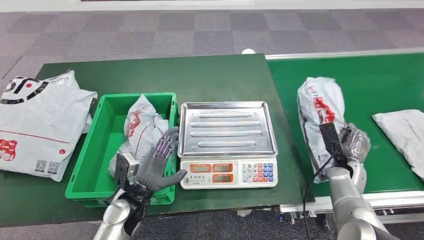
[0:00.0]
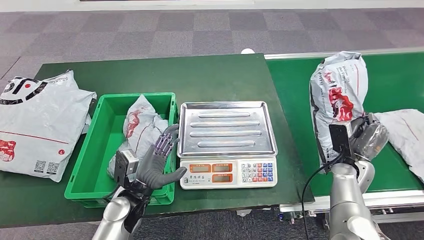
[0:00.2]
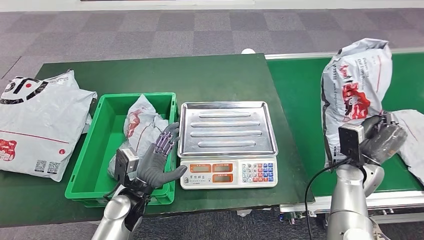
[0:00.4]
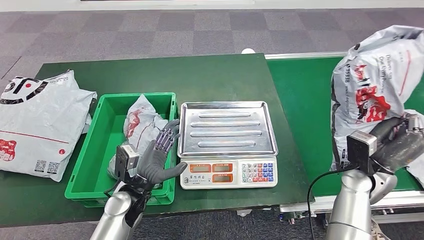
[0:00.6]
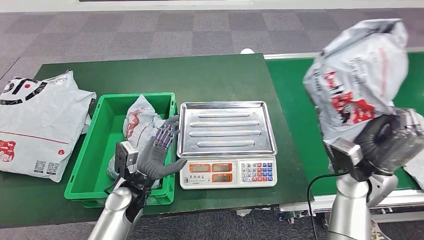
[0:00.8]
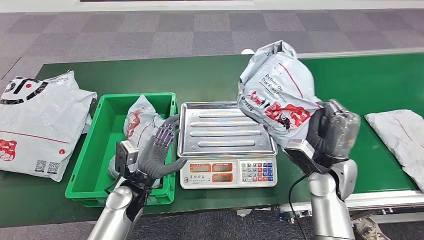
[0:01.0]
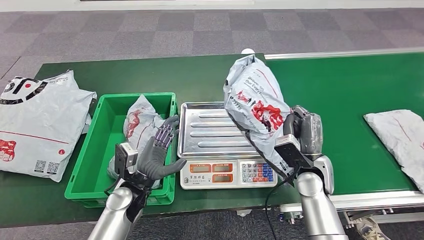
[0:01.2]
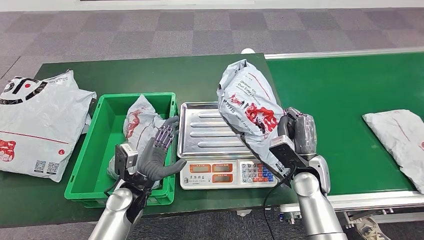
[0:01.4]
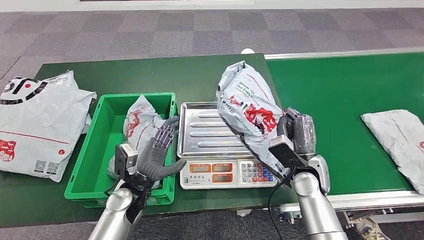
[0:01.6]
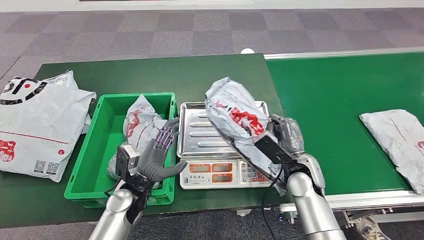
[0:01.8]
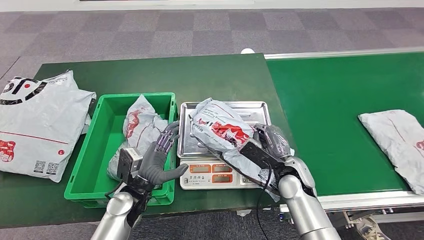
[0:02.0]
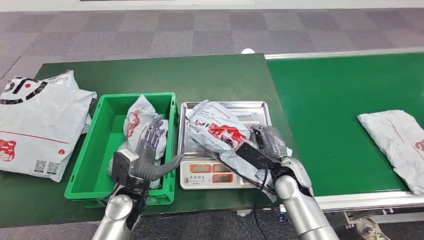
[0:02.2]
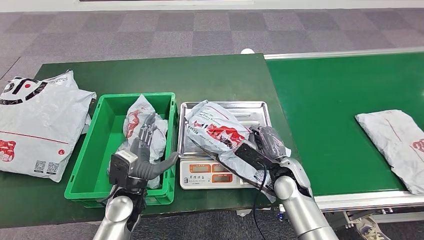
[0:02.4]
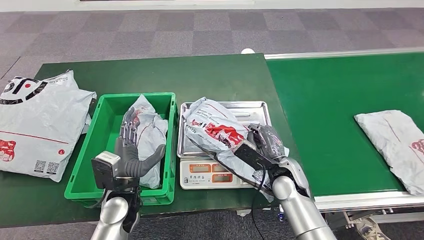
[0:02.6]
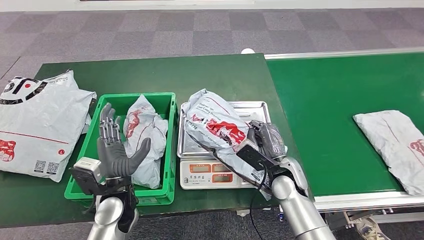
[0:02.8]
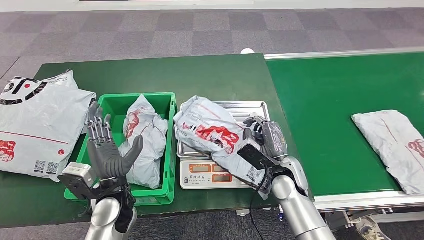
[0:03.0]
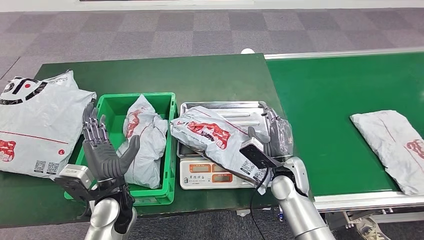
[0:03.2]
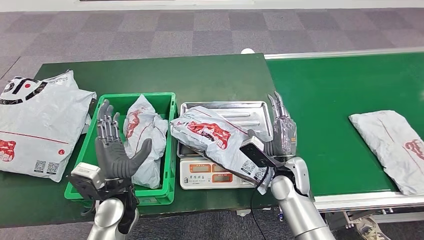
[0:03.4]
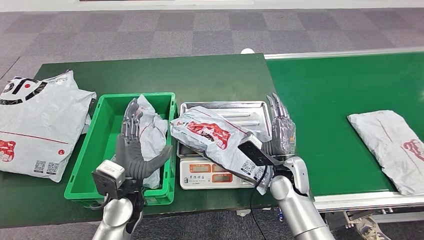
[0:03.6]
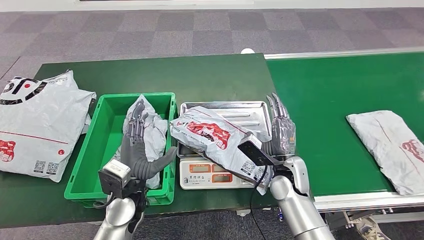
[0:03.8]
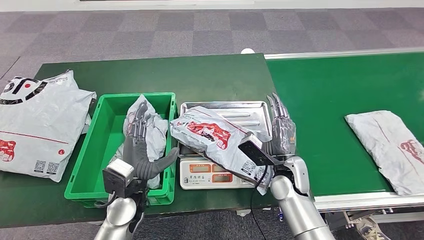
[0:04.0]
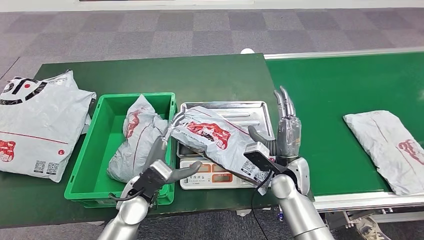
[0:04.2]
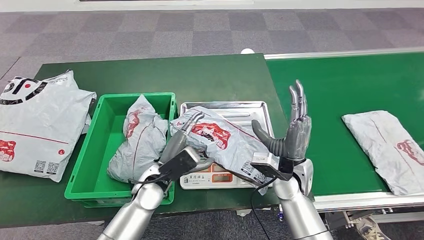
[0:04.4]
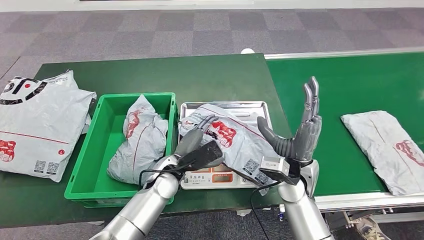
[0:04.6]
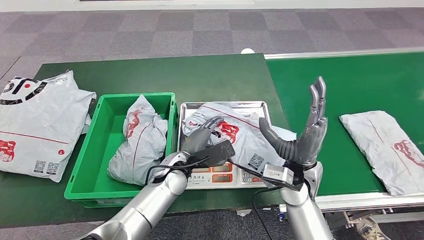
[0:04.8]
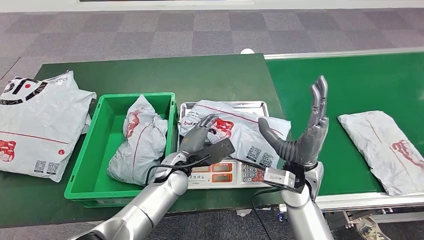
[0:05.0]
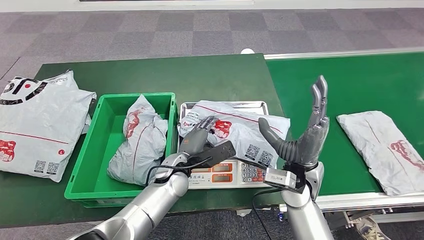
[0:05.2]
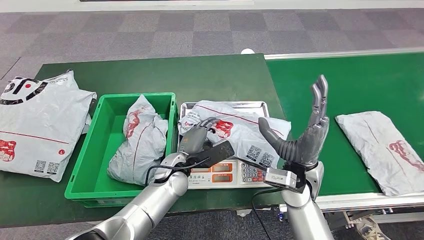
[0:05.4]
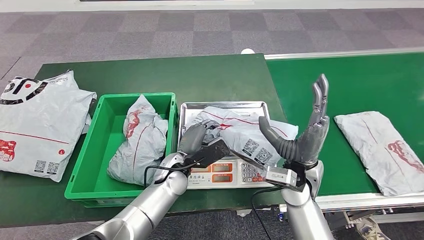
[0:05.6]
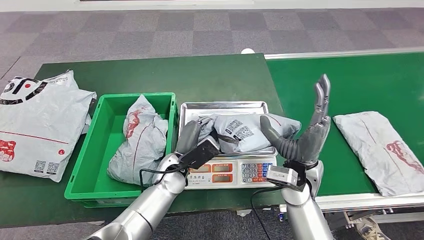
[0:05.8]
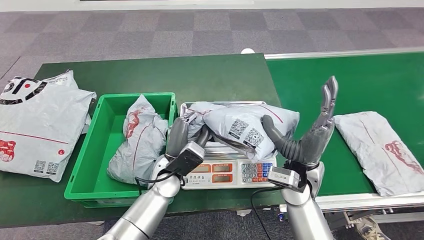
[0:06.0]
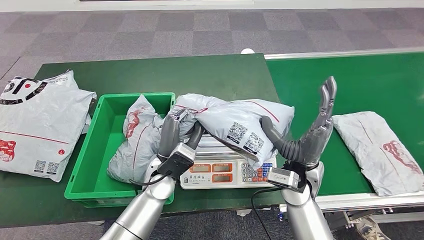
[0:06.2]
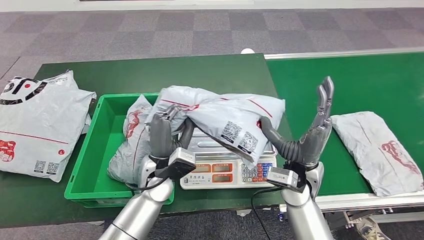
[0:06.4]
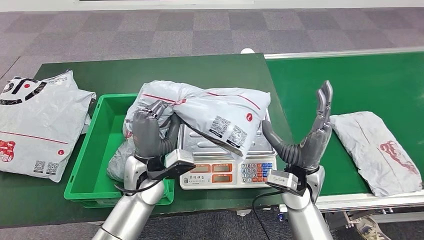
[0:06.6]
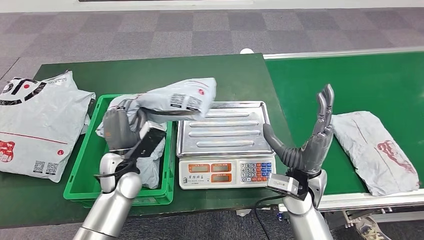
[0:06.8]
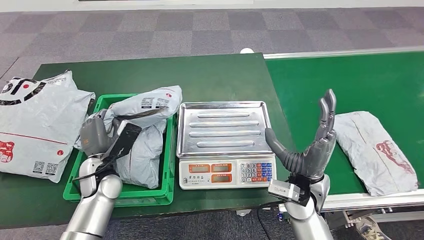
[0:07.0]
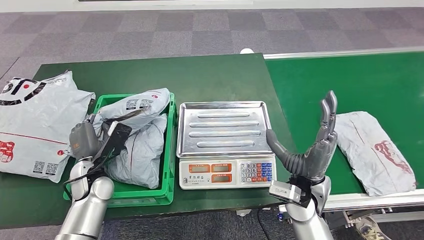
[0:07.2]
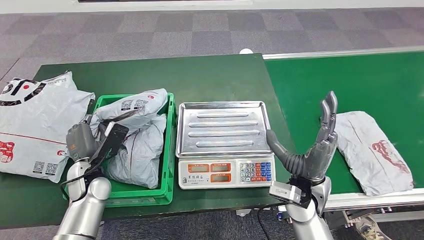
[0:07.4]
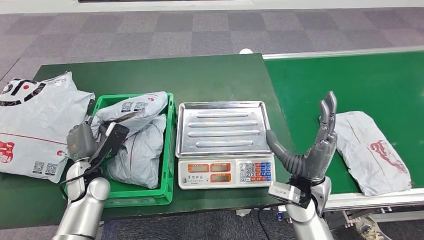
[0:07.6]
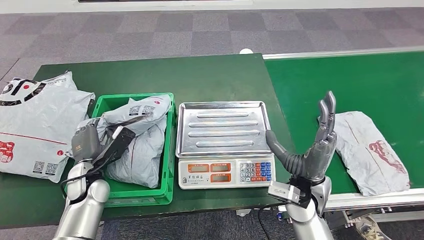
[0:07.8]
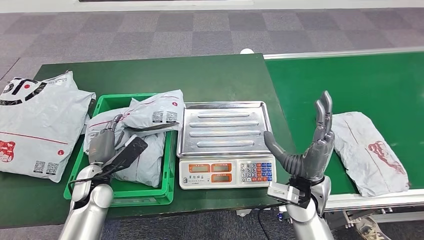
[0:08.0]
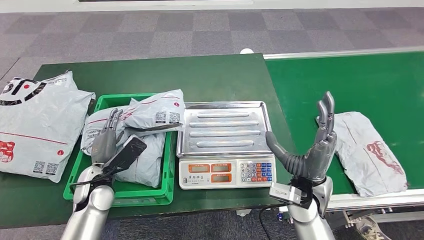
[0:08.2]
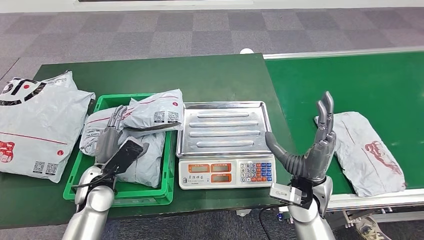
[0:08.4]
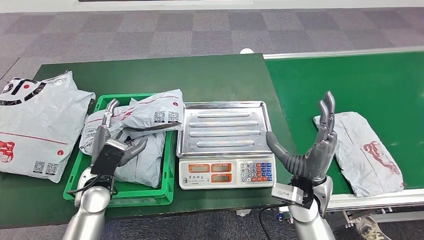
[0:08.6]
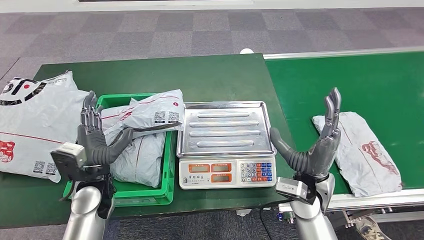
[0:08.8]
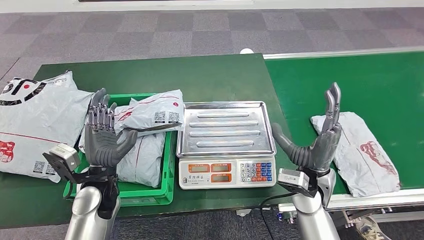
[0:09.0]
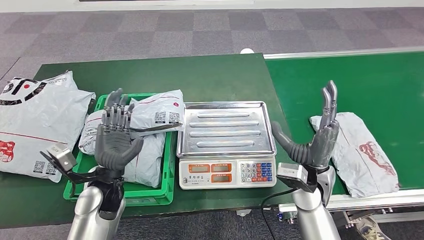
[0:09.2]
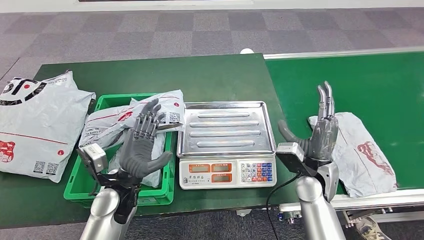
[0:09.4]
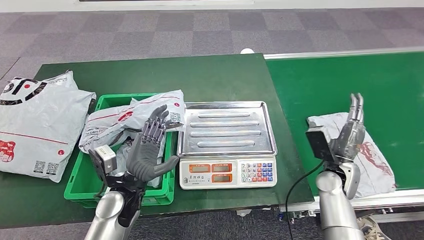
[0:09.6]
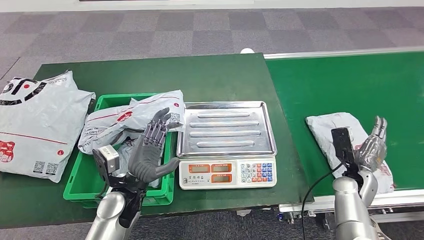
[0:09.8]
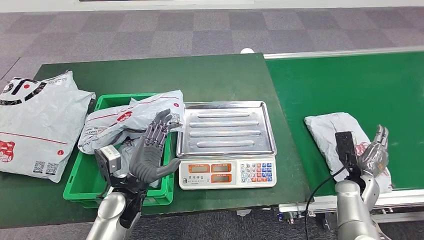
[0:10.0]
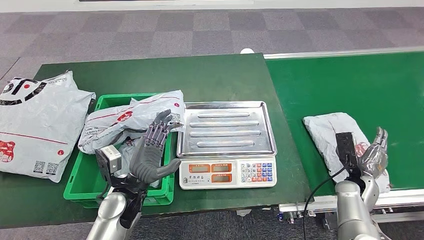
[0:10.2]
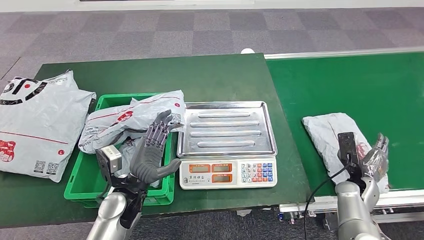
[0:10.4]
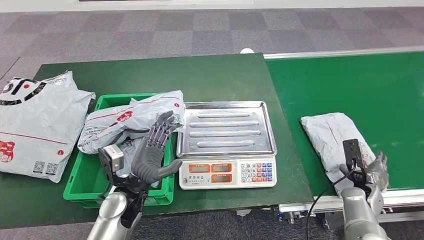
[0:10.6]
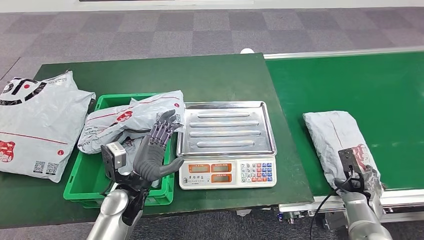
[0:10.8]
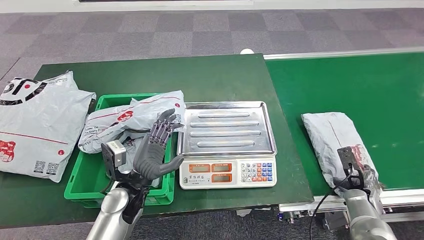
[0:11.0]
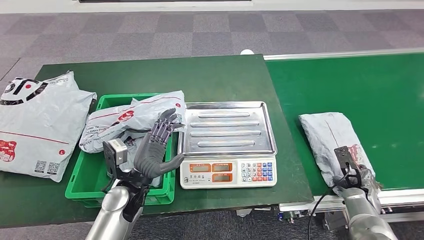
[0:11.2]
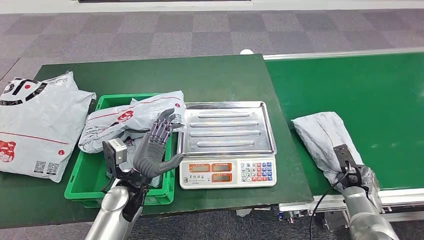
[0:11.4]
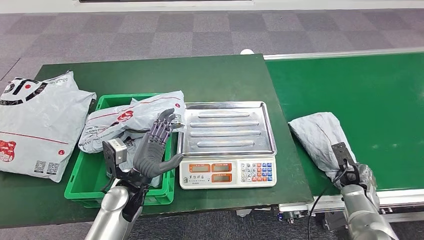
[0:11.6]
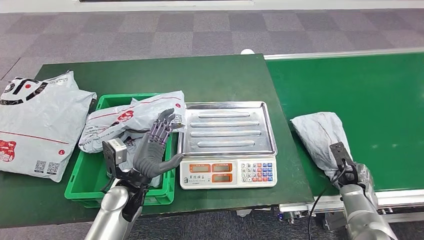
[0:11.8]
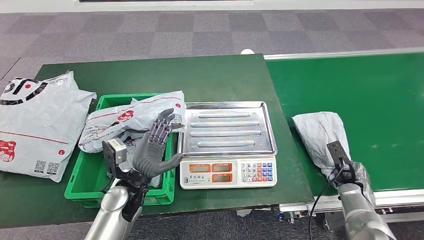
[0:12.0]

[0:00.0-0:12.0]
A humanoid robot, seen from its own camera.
Step, 0:01.0 to 0:05.2: Place the parcel onto the inbound machine.
Step, 0:05.4 to 0:06.8: Pick up the parcel from the inbound machine.
Step, 0:07.2 to 0:09.6: Place the parcel into the delivery box.
0:03.0 to 0:04.4: The left hand goes about 5 cm to the right.
0:07.6 to 0:09.0: The left hand goes roughly 5 cm to the right.

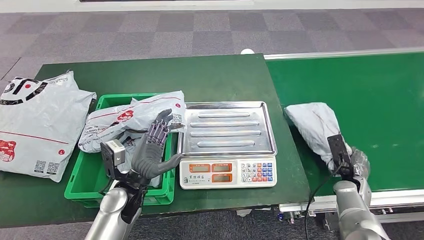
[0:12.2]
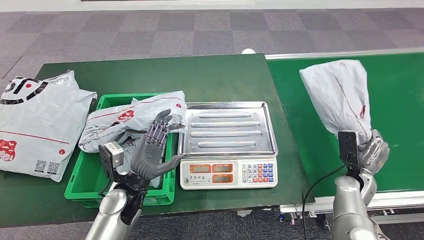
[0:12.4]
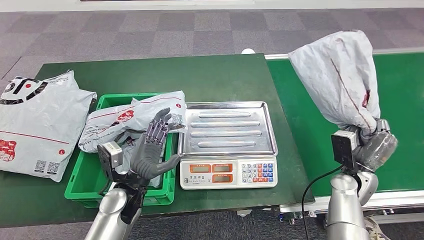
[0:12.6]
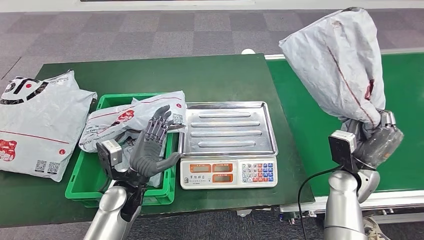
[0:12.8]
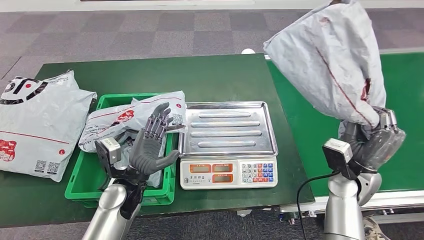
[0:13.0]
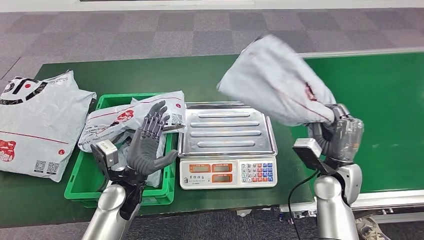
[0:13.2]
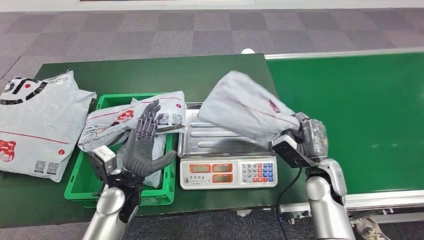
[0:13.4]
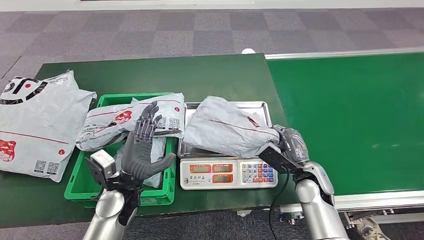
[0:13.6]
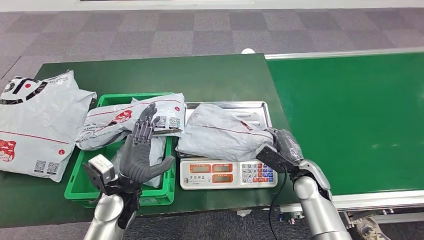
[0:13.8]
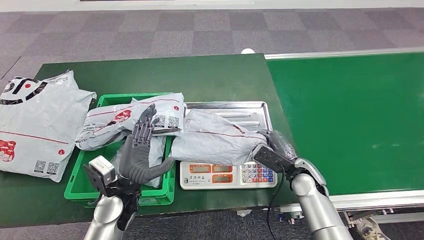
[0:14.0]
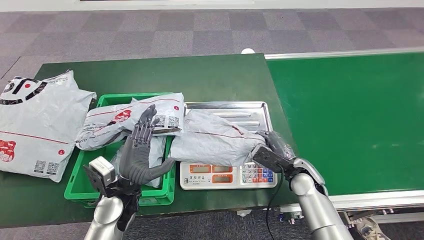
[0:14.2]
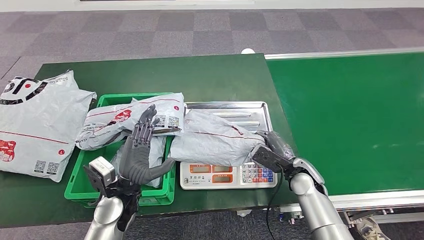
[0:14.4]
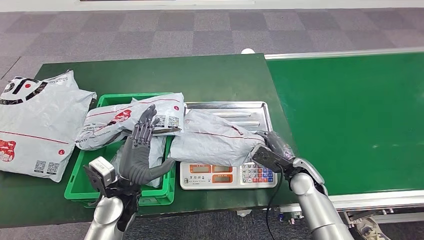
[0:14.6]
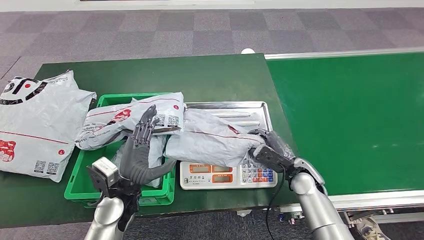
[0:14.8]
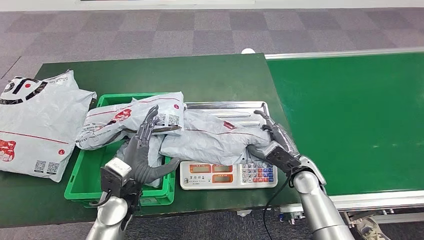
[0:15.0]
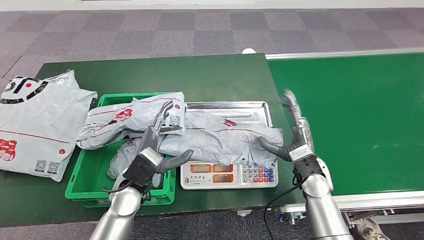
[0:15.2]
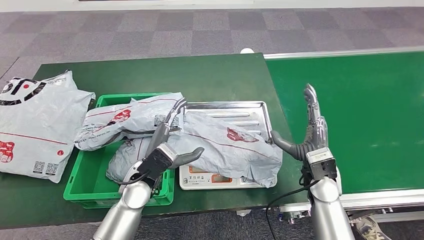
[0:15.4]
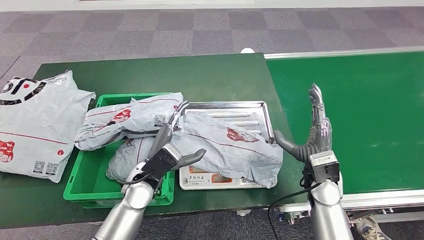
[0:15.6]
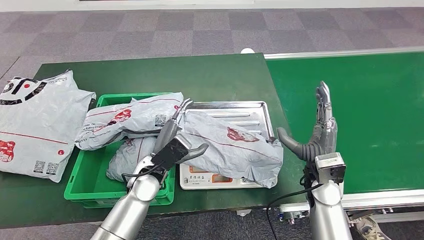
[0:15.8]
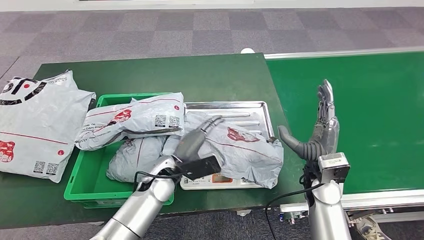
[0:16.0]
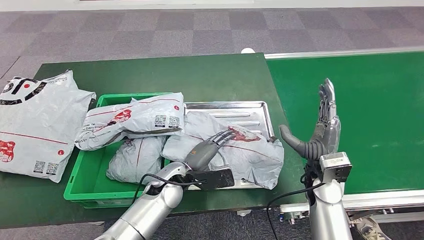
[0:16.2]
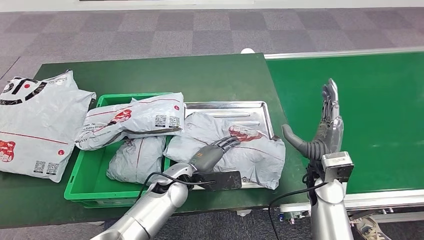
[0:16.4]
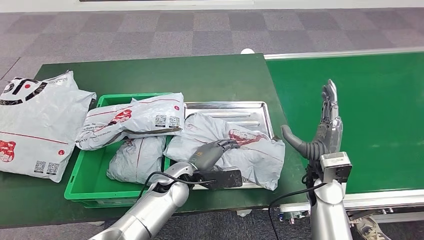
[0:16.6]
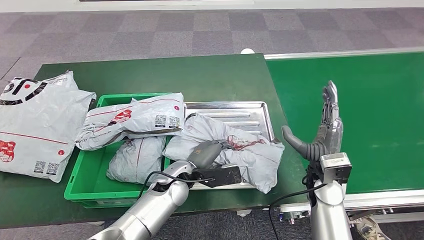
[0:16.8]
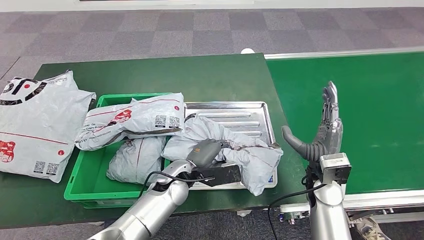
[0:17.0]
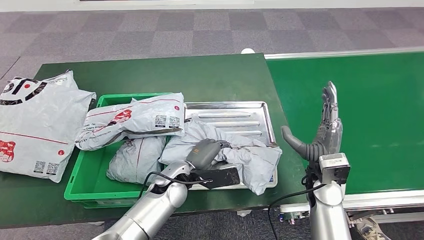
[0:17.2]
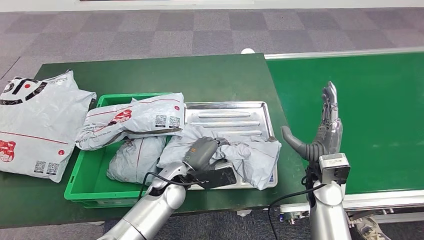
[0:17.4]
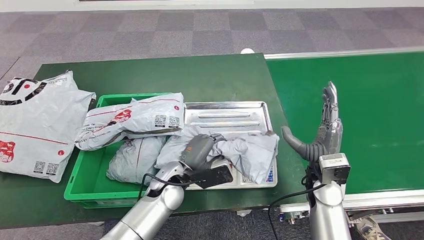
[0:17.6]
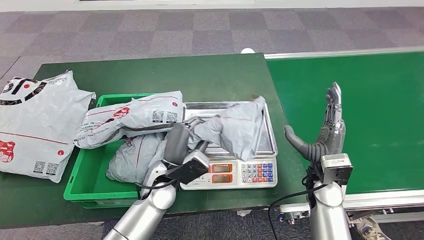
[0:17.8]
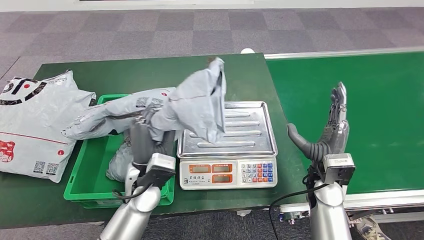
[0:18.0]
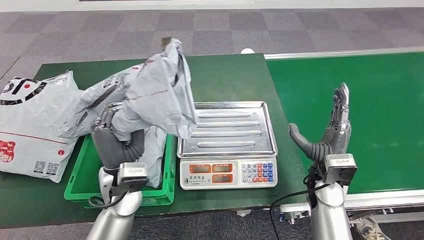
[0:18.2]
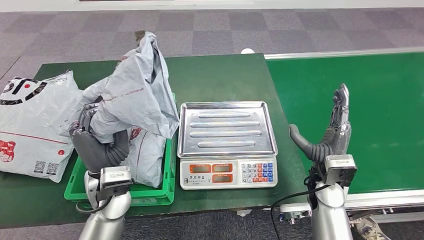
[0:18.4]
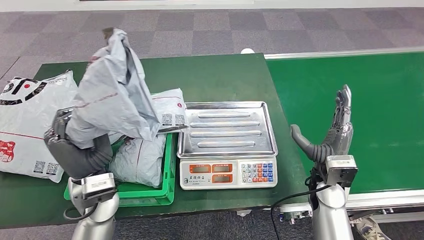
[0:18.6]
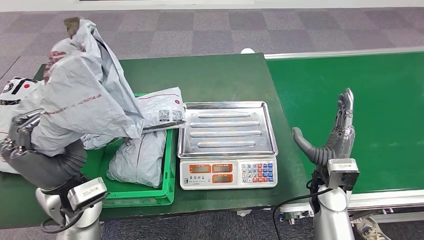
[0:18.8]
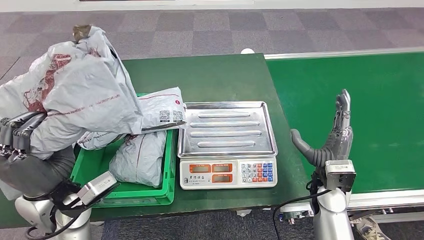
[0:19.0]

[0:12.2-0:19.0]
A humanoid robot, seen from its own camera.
Step, 0:12.6 to 0:16.6: Place the parcel onto the inbound machine.
Step, 0:17.0 to 0:18.6: Pick up the parcel from the inbound machine.
0:15.0 to 0:16.2: The right hand travels upward by some 5 cm; the left hand heads to the right, covering about 10 cm.
0:16.2 to 0:17.6: The hands move only a little.
